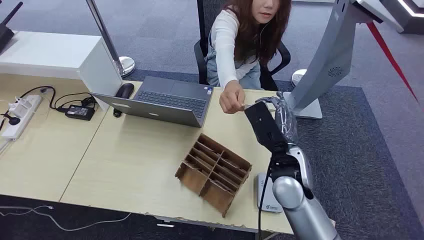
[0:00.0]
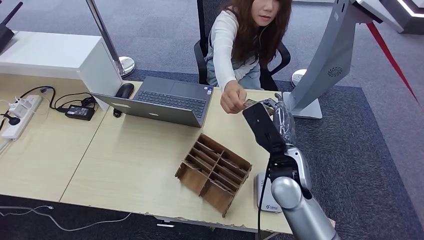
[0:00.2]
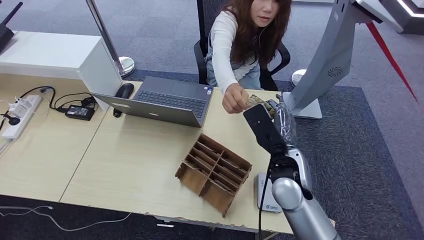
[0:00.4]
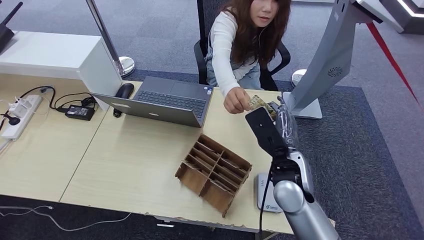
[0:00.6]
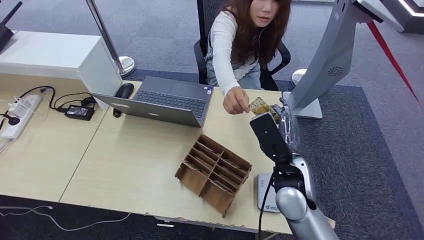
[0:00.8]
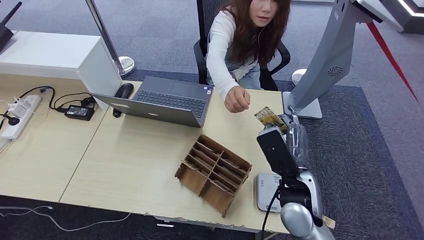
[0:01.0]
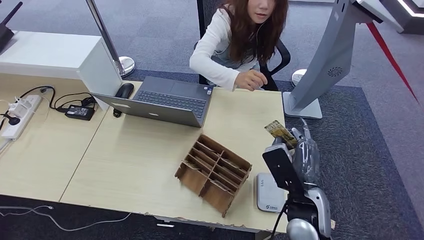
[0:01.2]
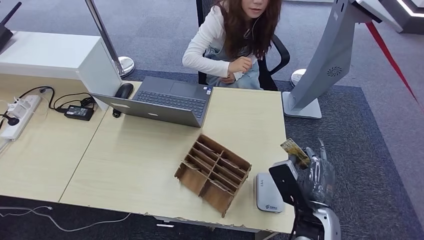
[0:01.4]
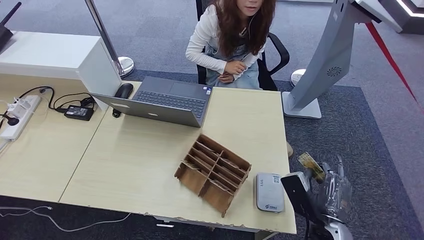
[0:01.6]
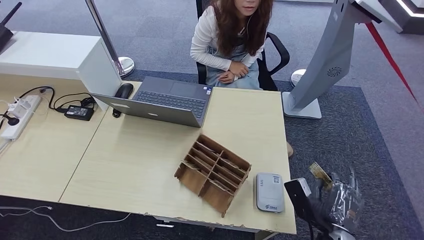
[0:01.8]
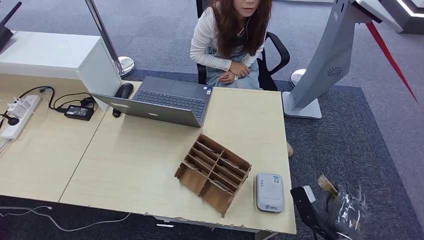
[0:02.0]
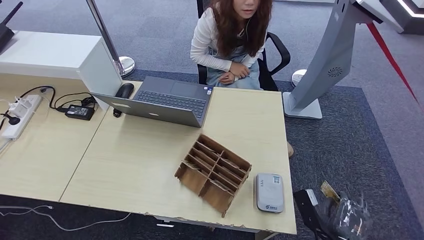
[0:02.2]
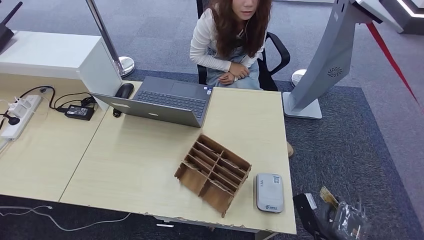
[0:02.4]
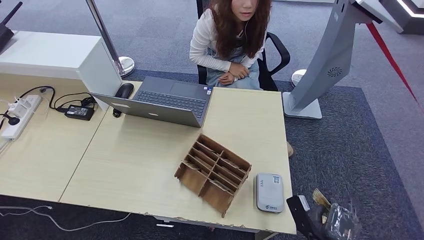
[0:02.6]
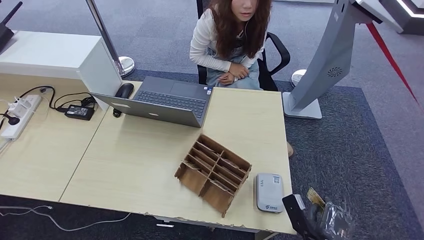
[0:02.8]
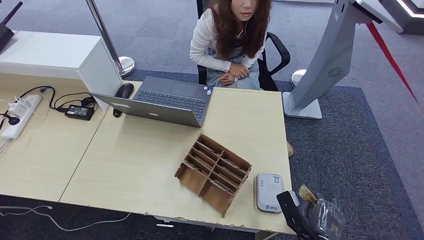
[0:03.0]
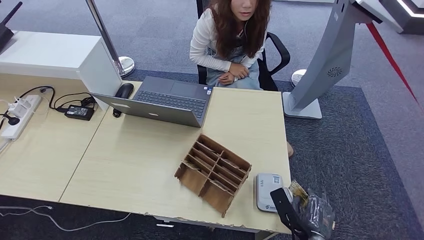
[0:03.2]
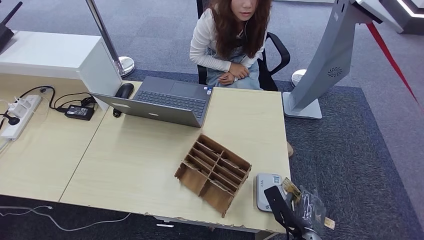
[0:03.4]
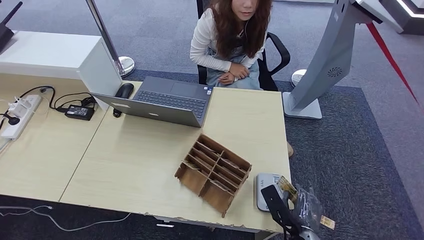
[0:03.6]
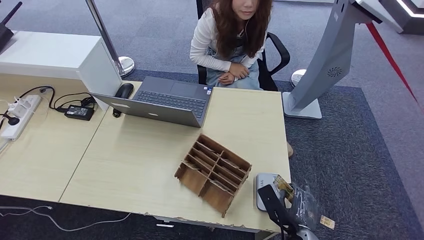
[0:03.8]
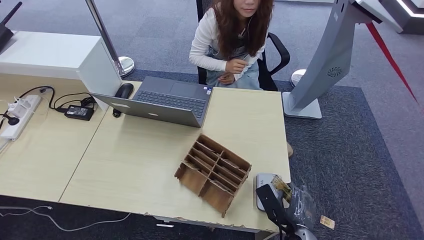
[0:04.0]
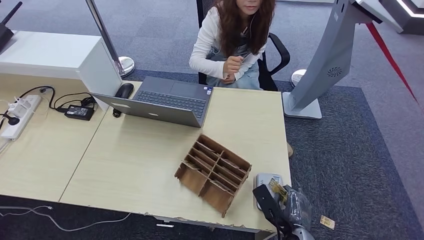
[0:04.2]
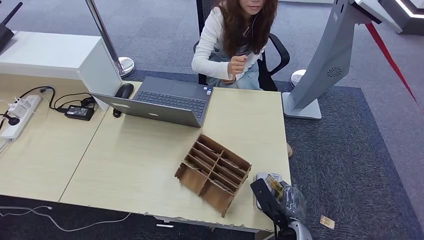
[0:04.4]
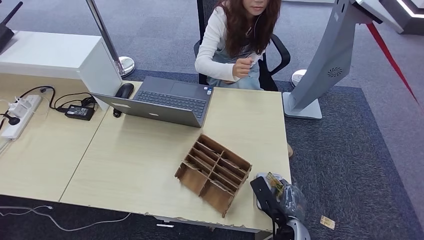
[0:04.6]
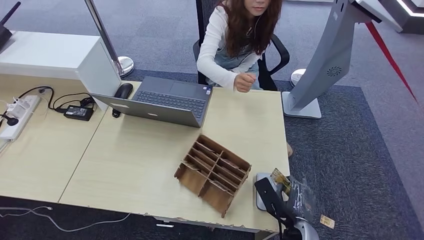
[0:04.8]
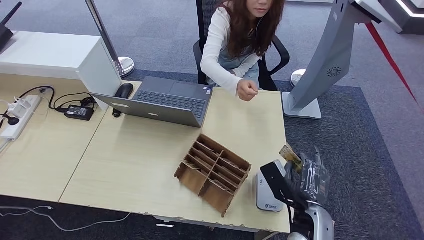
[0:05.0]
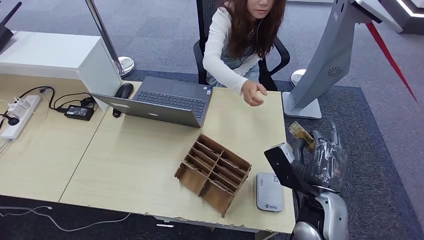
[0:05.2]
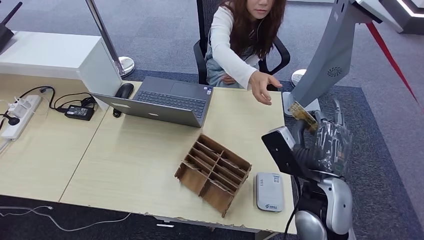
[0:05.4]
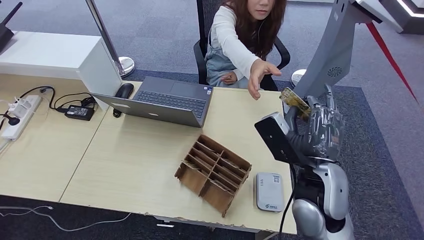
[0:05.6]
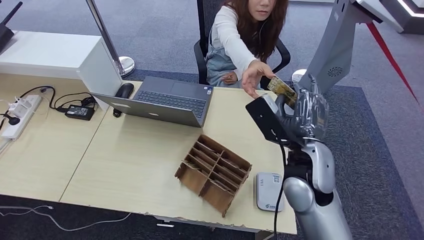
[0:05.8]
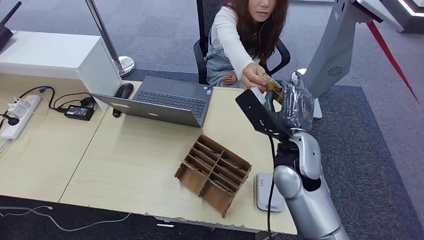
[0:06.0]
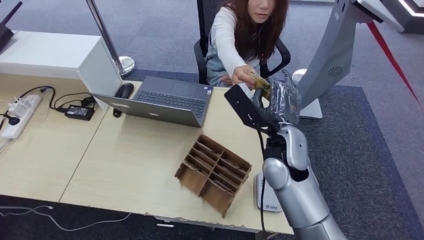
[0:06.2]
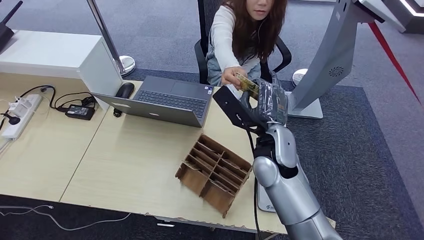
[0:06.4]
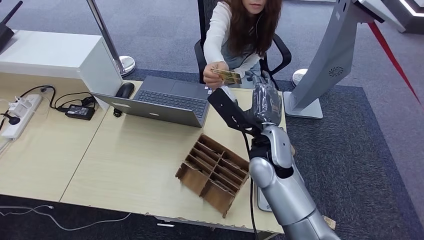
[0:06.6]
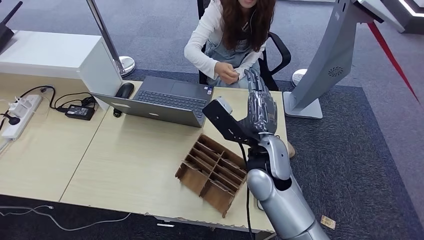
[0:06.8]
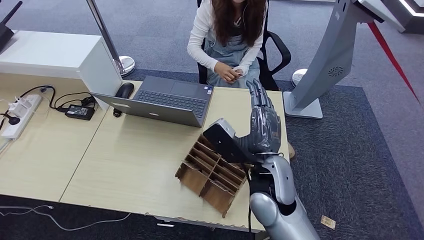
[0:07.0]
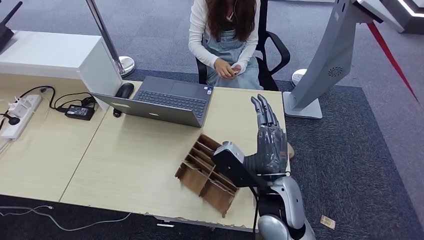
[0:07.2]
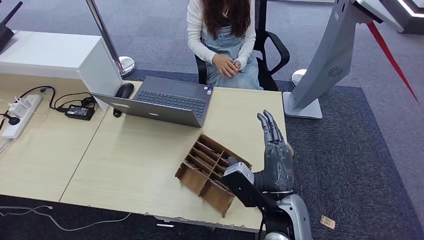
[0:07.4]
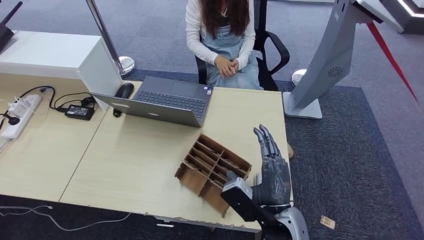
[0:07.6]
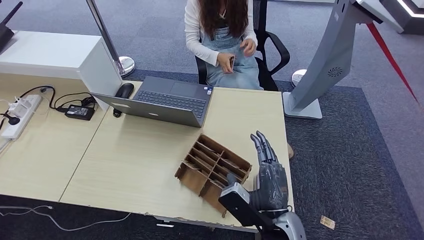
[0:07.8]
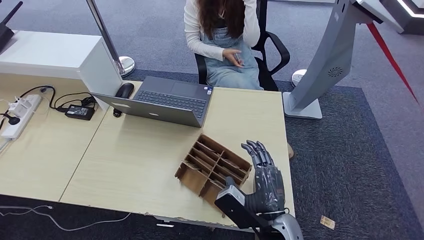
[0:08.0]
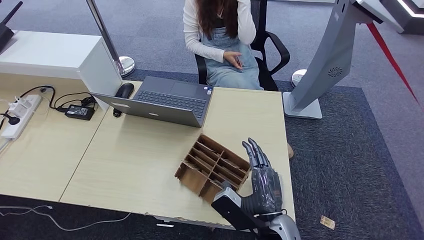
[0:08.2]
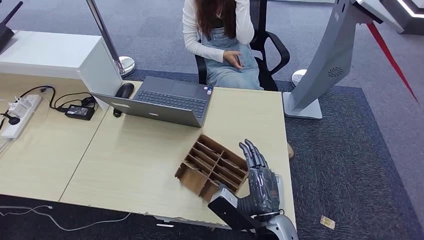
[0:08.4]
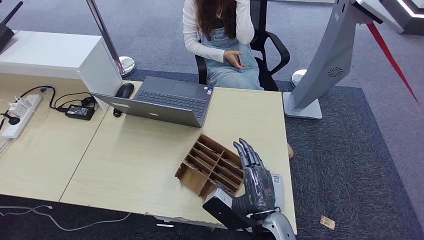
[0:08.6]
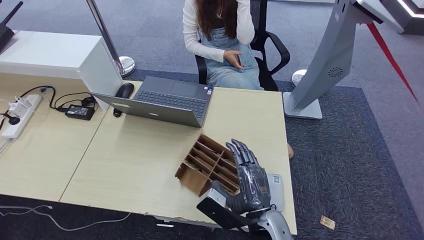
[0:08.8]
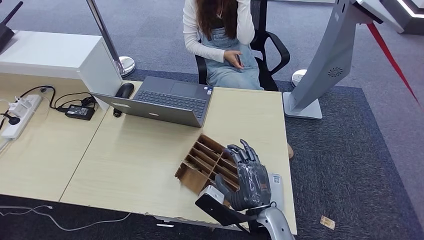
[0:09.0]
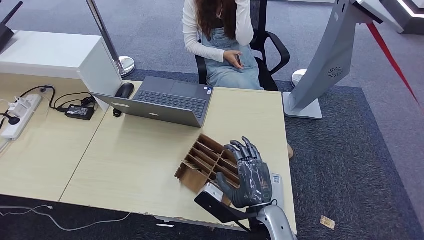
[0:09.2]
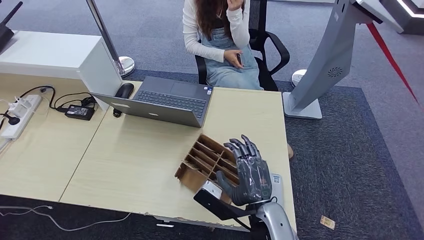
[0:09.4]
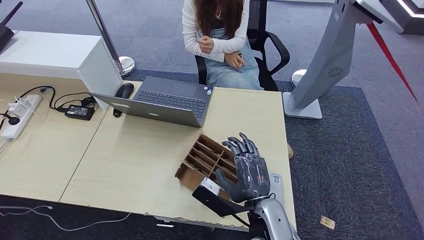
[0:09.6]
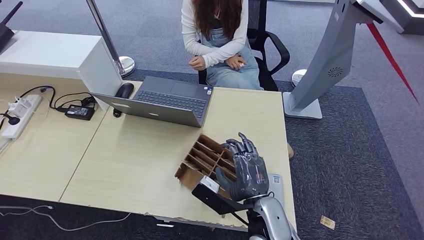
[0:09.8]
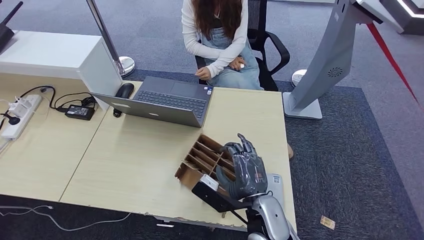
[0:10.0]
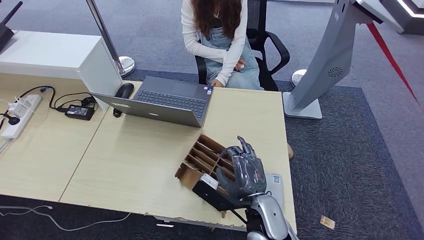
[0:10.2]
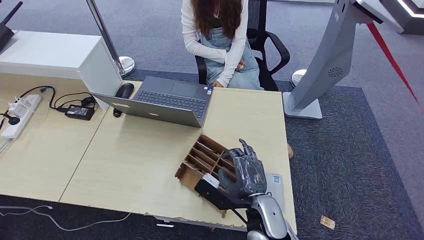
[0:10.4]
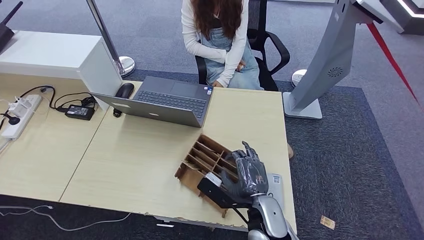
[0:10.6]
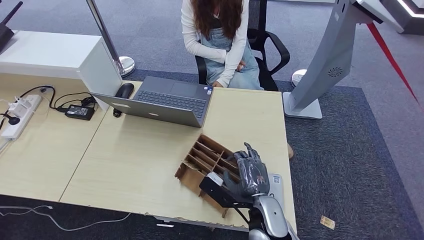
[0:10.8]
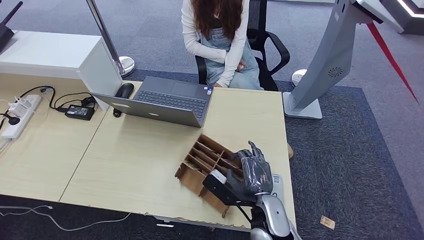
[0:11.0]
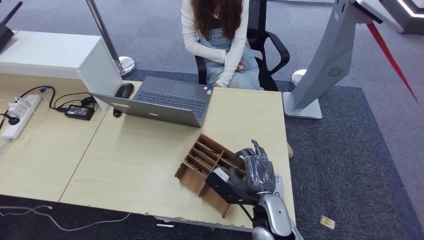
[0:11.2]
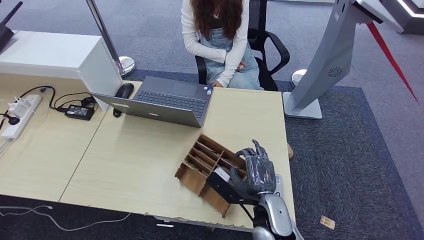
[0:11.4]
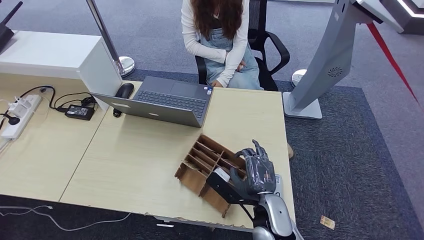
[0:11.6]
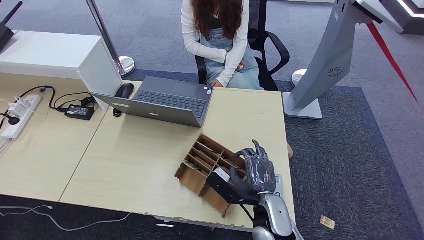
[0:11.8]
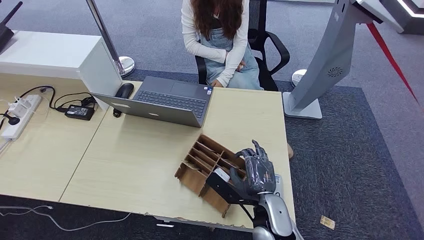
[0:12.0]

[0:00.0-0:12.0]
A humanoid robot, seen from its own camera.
Step, 0:00.0 to 0:02.6: Take the ID card from the person's hand.
Step, 0:02.8 to 0:04.6: Place the ID card on the card reader.
Step, 0:04.8 to 0:07.4: Hand the ID card to the person.
Step, 0:07.6 to 0:12.0: Pick up the room key from the key card box.
0:01.6 to 0:03.0: The right hand is displaced downward by some 10 cm.
0:03.0 to 0:04.4: The right hand is displaced to the left by approximately 5 cm.
0:04.4 to 0:06.0: The right hand moves upward and forward, approximately 25 cm.
0:06.0 to 0:07.6: The right hand travels backward and downward by roughly 15 cm.
0:07.6 to 0:09.0: The hands move only a little.
0:09.0 to 0:12.0: There are only small adjustments of the hands.

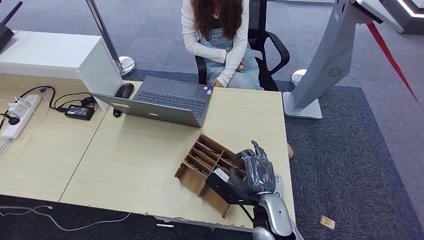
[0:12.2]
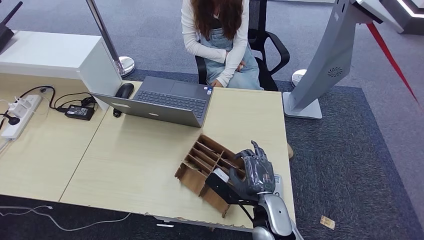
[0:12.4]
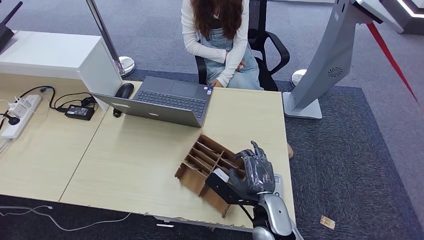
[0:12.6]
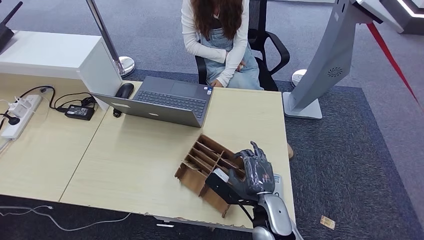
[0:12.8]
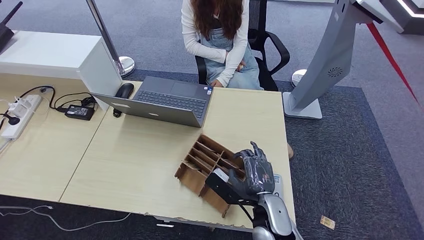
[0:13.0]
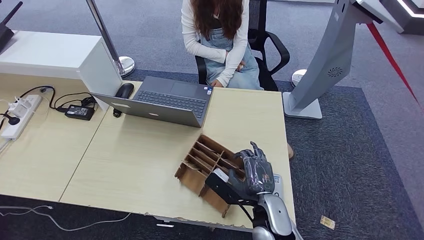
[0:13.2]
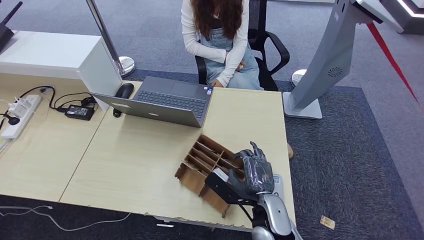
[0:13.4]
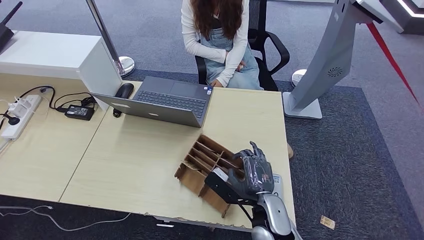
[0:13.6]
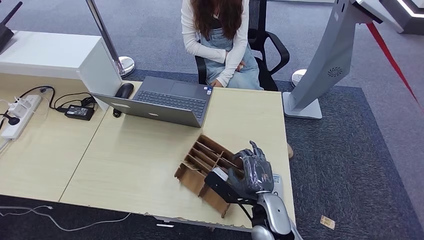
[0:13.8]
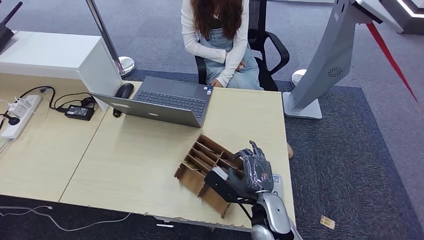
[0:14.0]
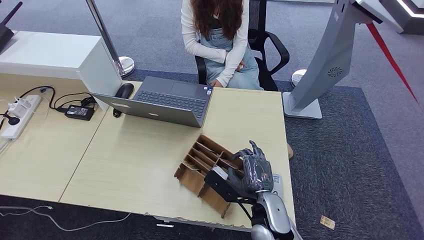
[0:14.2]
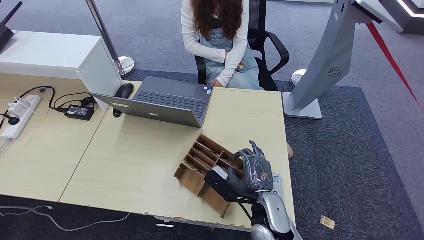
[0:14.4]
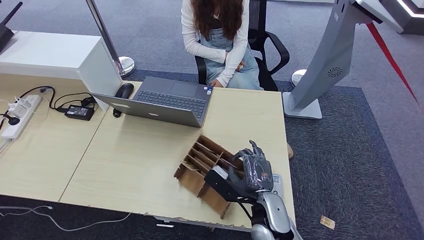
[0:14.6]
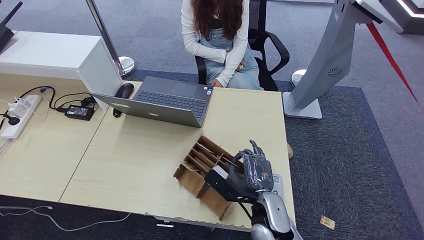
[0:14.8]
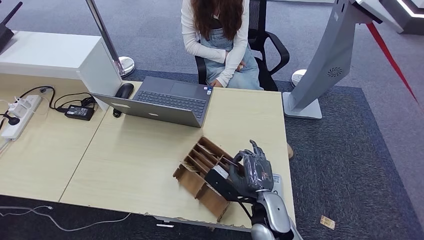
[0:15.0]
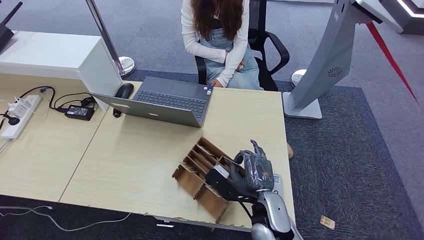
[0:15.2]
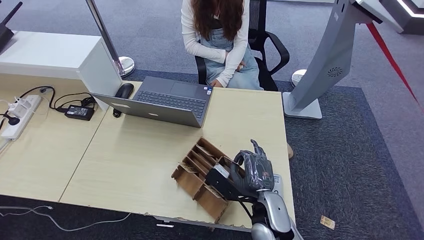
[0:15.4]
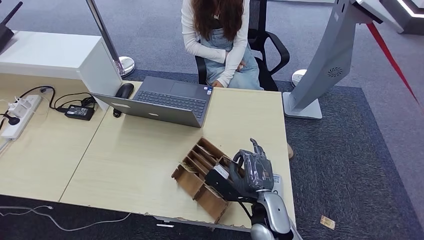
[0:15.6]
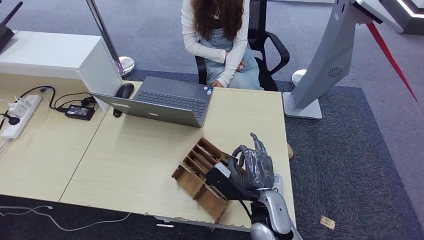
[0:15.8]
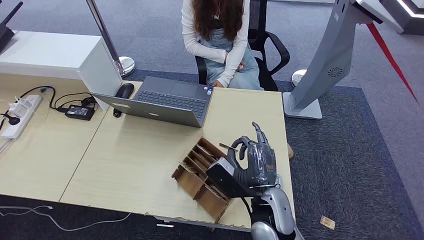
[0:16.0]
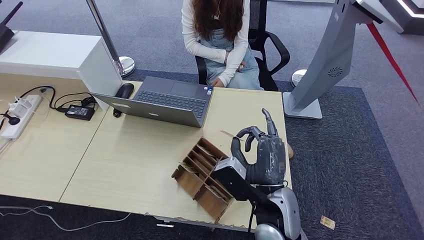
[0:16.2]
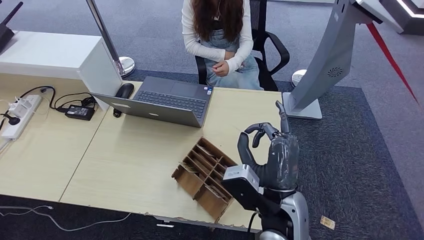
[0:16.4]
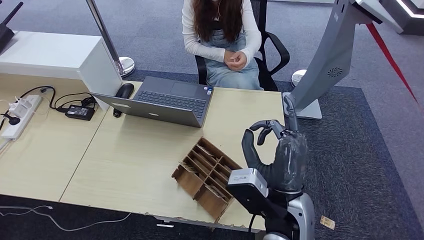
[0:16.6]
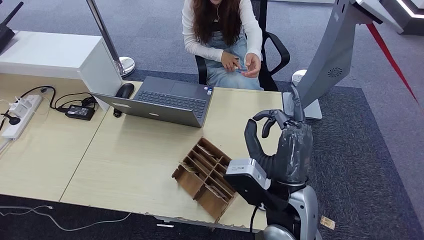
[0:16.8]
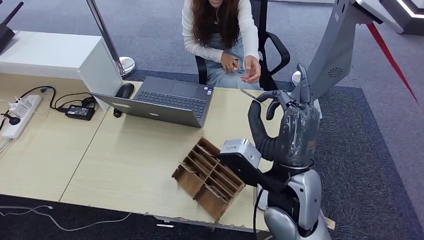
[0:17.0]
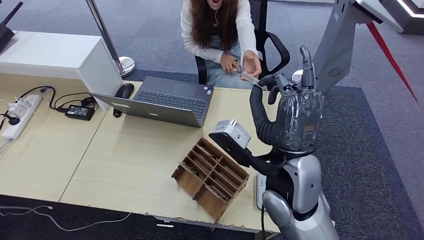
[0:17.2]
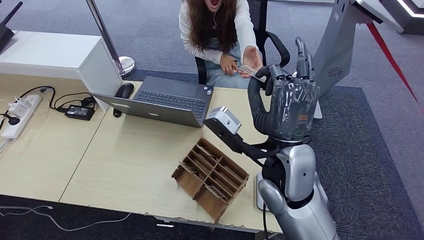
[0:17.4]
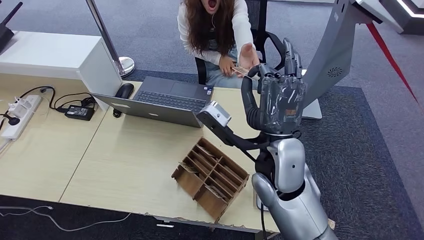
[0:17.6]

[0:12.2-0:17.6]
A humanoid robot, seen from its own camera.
0:12.2 to 0:15.0: Both hands stay put.
0:15.0 to 0:16.2: The right hand travels upward by roughly 10 cm.
0:16.2 to 0:17.6: The right hand moves upward and forward, approximately 10 cm.
